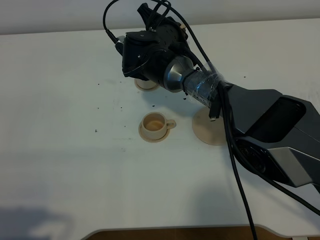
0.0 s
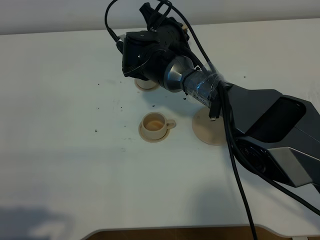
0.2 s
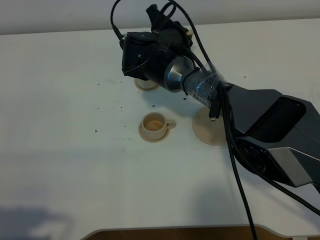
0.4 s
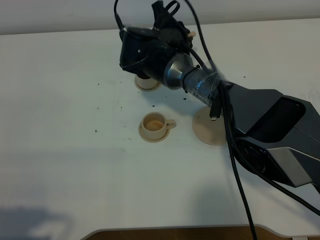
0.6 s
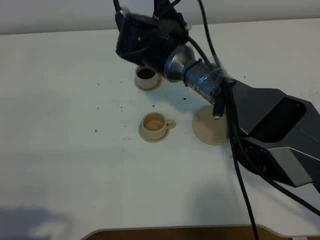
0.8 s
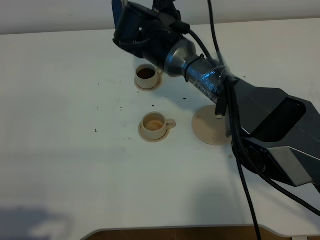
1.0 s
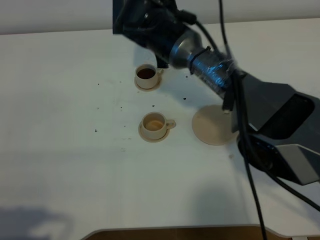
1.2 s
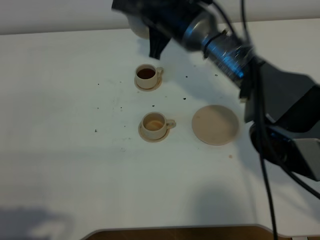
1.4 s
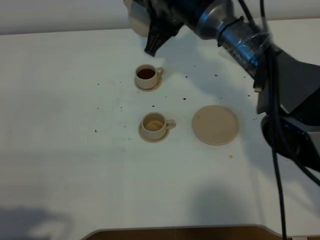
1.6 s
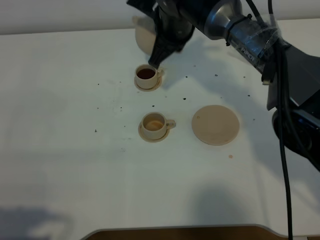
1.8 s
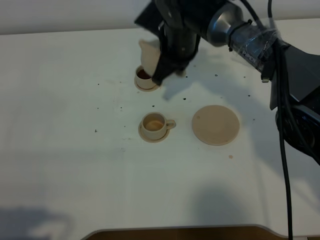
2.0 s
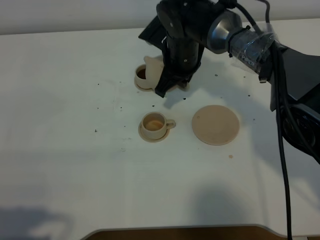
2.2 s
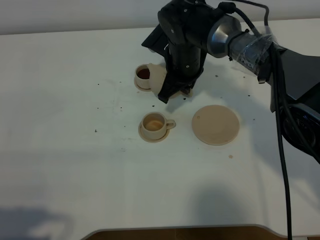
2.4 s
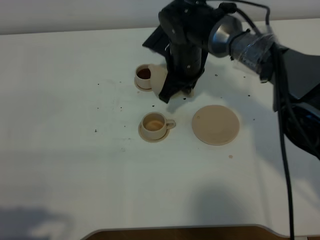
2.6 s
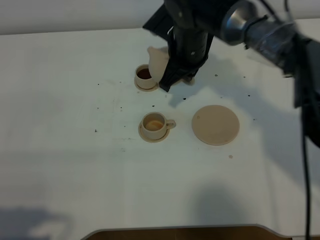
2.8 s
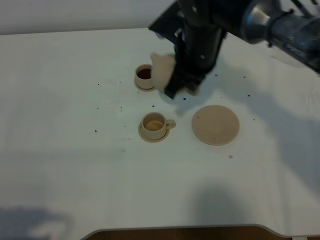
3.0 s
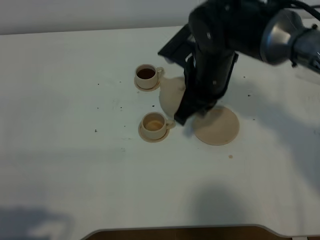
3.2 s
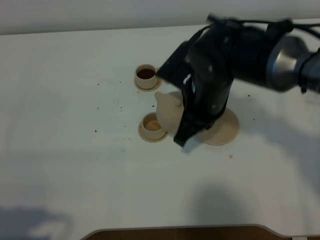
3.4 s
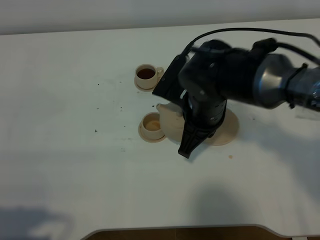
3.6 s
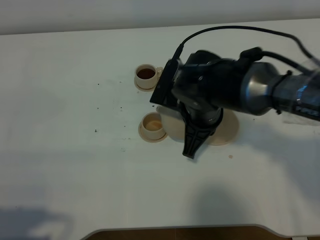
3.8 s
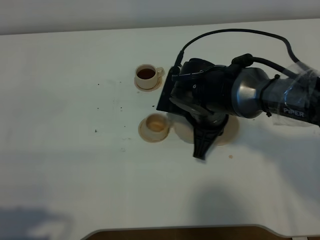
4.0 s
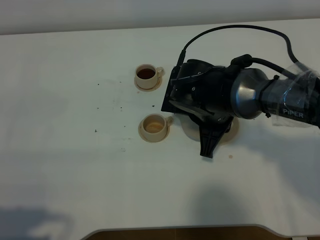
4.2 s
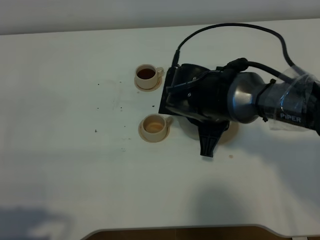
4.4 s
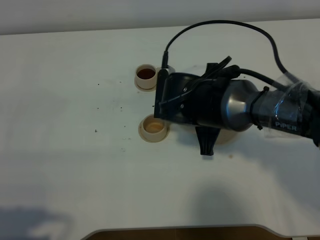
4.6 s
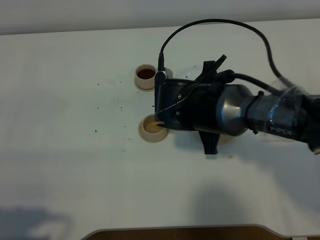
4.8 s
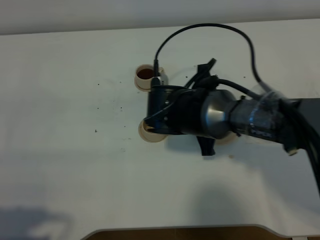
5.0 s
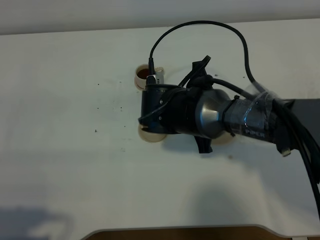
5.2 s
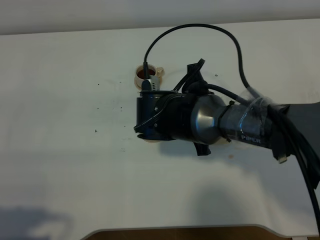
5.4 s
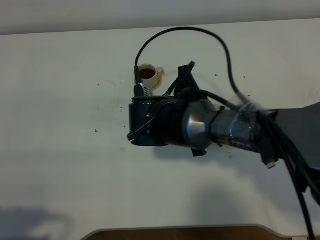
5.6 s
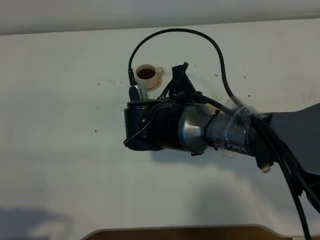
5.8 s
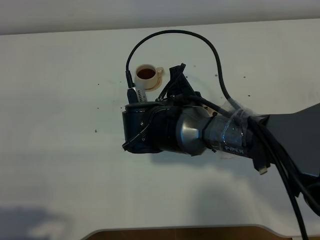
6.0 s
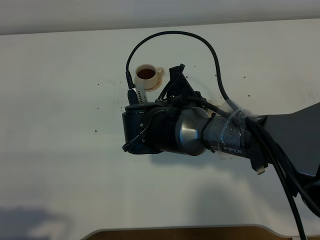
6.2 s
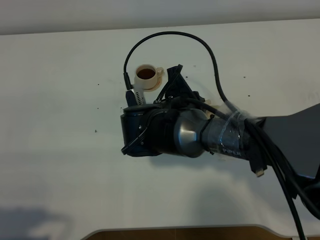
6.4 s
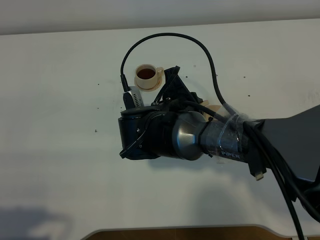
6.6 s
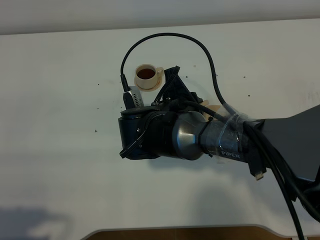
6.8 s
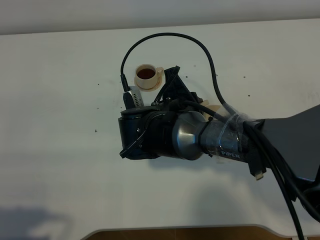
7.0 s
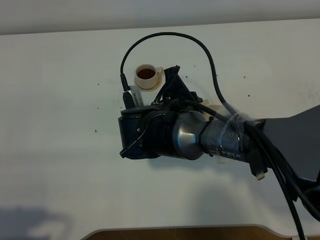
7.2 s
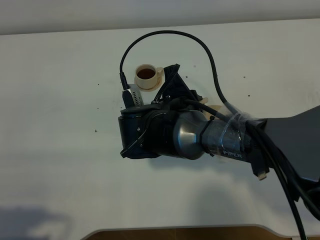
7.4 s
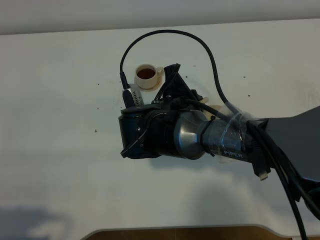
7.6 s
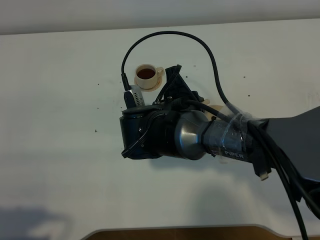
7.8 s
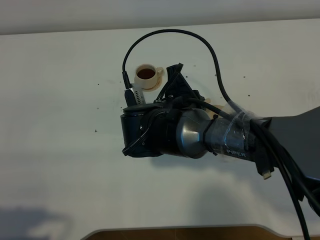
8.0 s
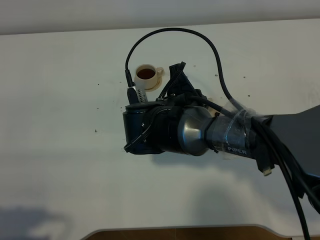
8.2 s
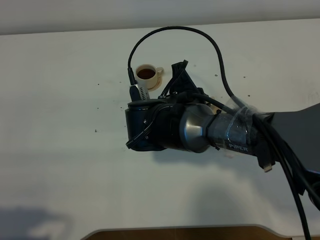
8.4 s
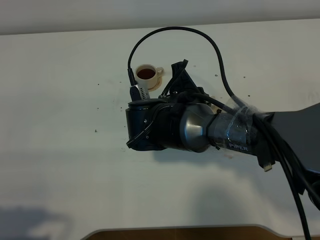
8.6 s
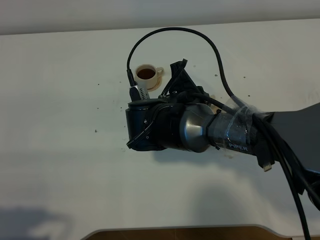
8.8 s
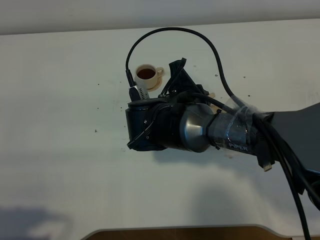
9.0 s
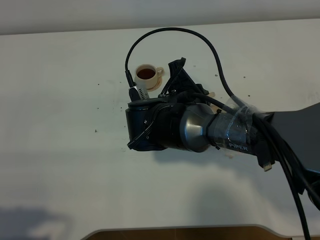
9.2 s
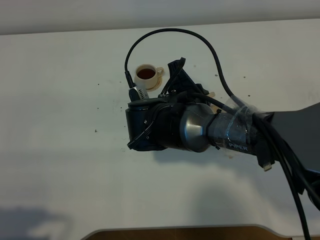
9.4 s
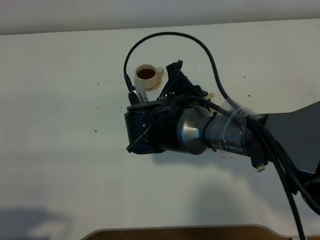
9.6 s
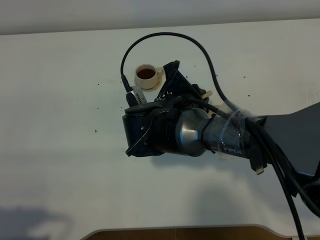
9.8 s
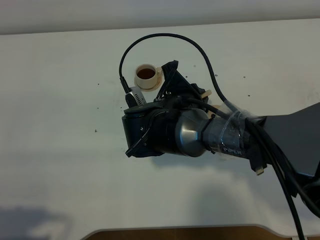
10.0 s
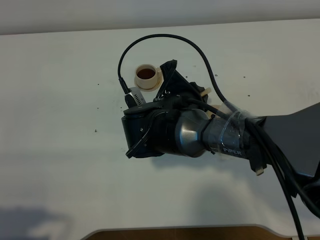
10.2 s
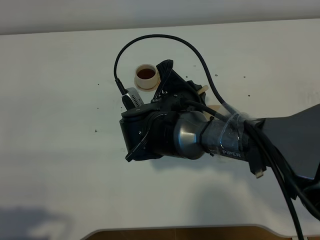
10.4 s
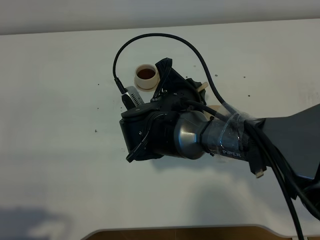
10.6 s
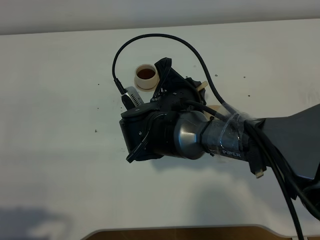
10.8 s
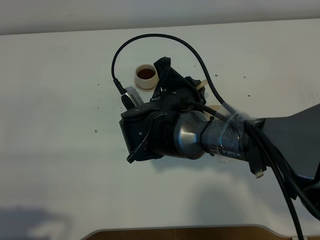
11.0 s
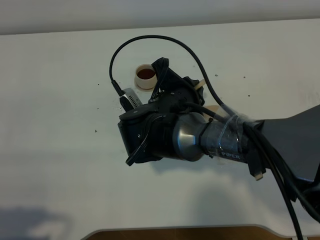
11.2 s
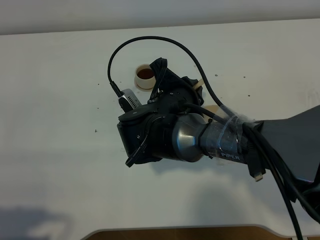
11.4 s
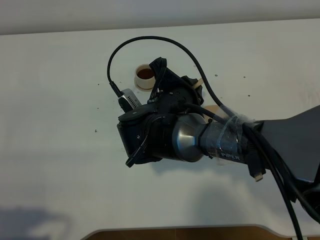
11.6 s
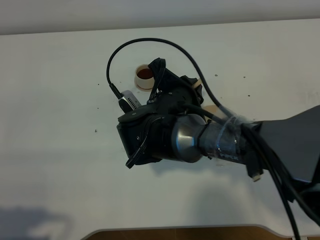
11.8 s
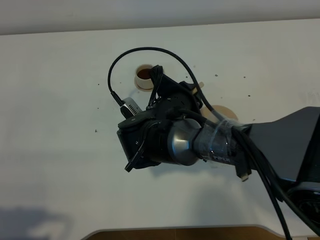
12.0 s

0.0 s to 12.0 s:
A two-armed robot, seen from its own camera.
Task of the whole recording: grasp the brown teapot and pour the tea into the two brown teacups one by one, put the brown teapot back in its original place.
0.0 to 1.6 s: The right gripper goes roughly 10 cm upward.
1.6 to 3.0 s: The right gripper heads backward, covering some 5 cm, and moves some 10 cm downward and comes back.
3.0 to 4.4 s: The right gripper moves backward and downward, about 10 cm.
4.4 to 6.0 s: The right gripper moves to the left, roughly 5 cm.
6.0 to 7.6 s: Both grippers stay put.
7.6 to 9.0 s: Neither gripper changes place.
9.0 to 10.4 s: The grippers stay close to where they were, moving slightly.
10.4 to 12.0 s: The grippers stay close to where they were, moving slightly.

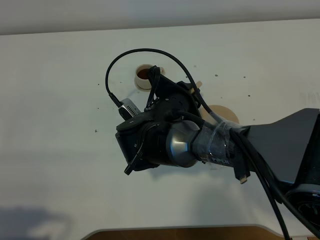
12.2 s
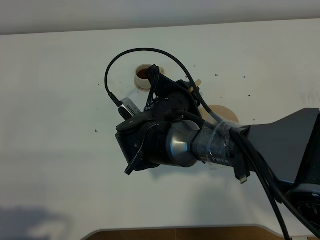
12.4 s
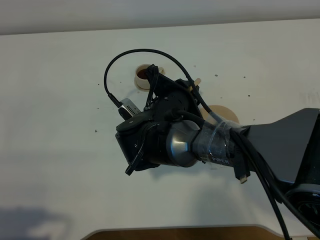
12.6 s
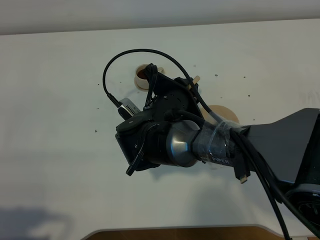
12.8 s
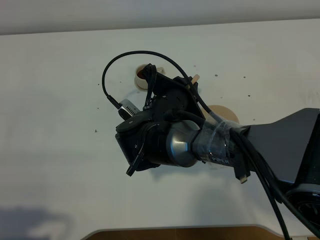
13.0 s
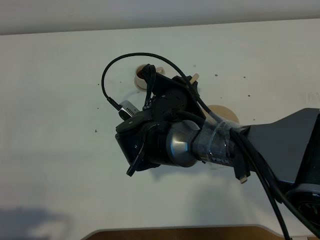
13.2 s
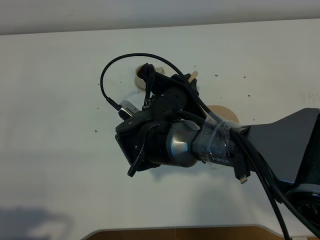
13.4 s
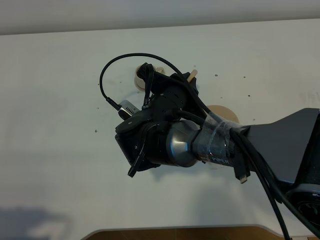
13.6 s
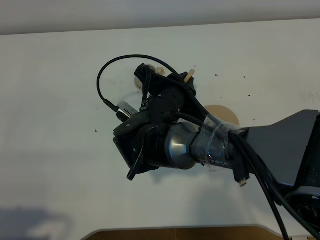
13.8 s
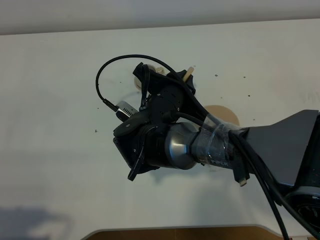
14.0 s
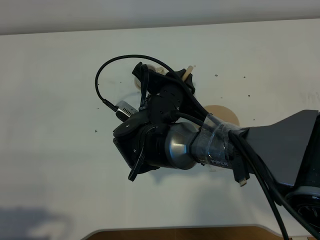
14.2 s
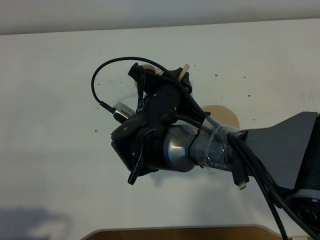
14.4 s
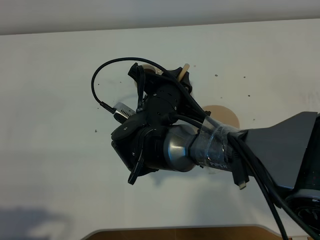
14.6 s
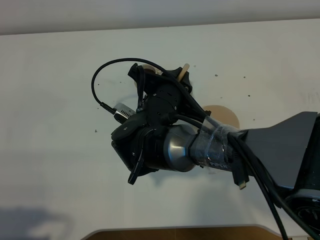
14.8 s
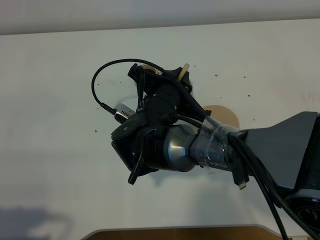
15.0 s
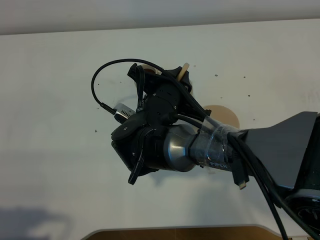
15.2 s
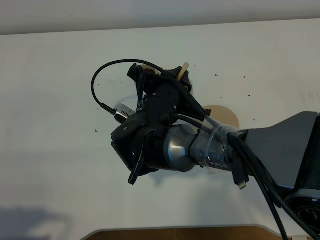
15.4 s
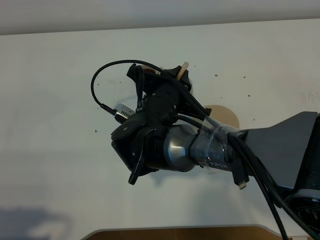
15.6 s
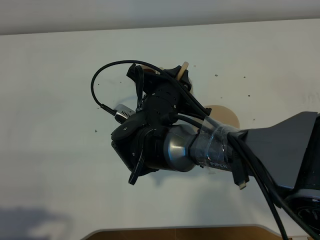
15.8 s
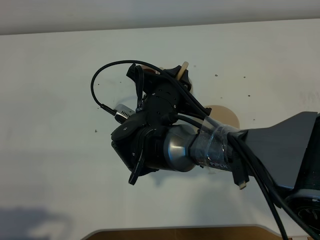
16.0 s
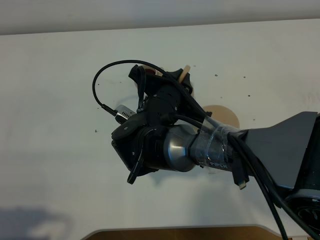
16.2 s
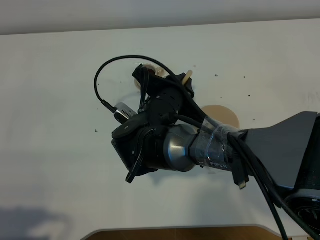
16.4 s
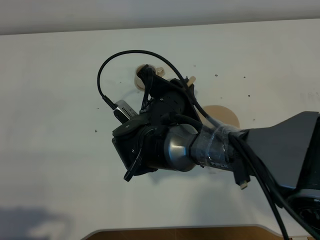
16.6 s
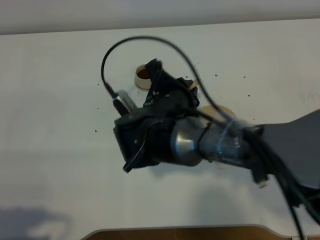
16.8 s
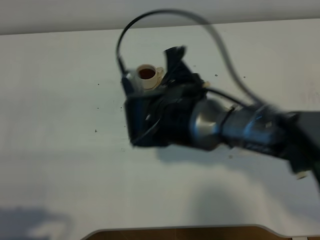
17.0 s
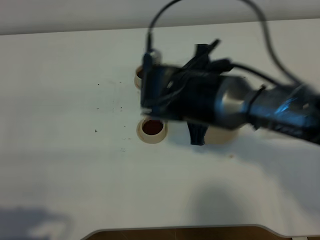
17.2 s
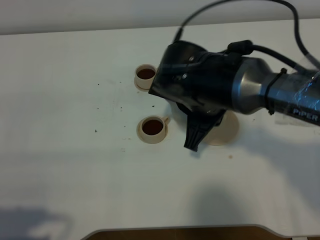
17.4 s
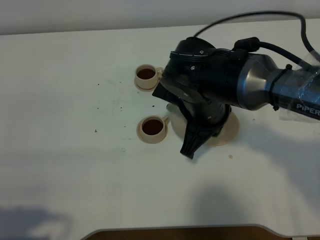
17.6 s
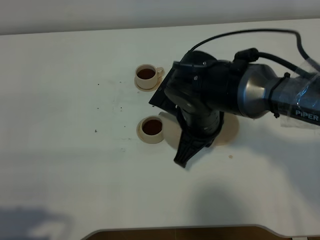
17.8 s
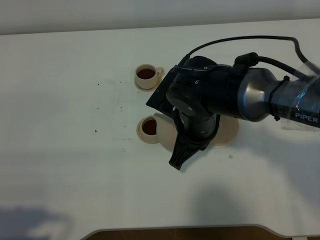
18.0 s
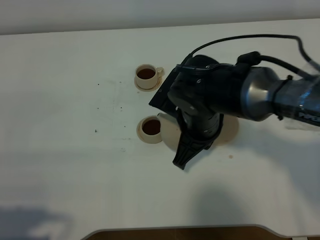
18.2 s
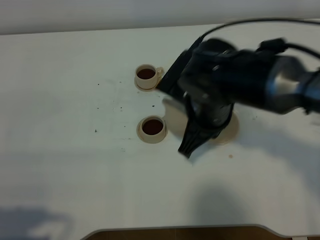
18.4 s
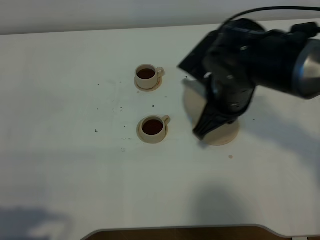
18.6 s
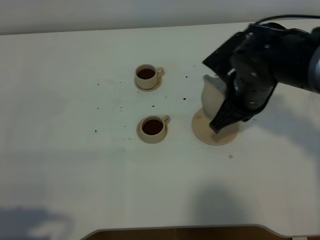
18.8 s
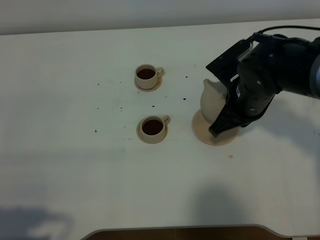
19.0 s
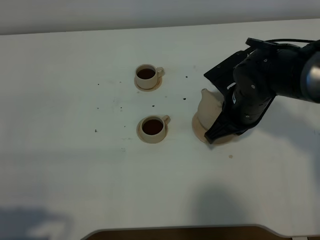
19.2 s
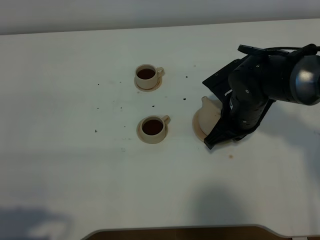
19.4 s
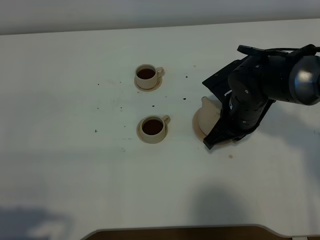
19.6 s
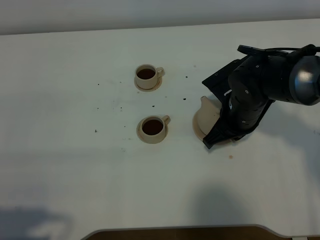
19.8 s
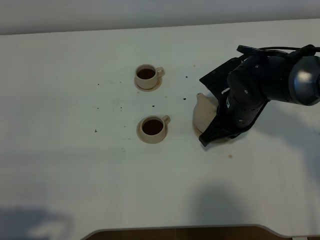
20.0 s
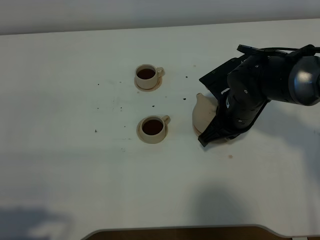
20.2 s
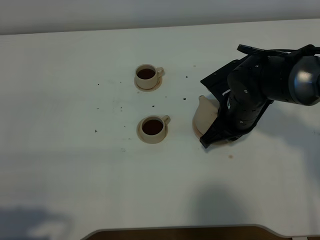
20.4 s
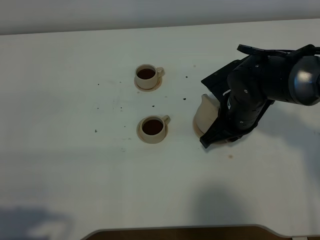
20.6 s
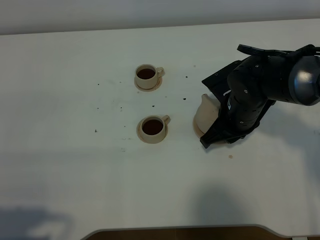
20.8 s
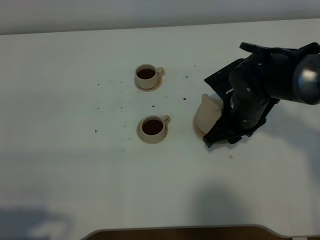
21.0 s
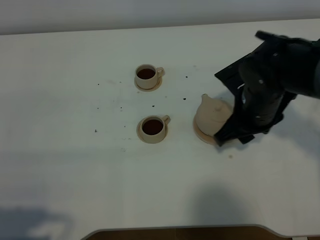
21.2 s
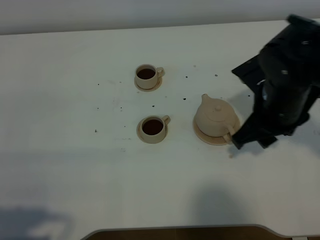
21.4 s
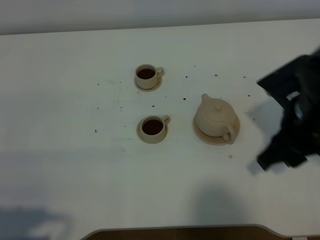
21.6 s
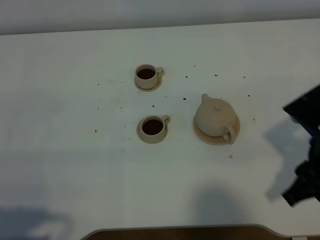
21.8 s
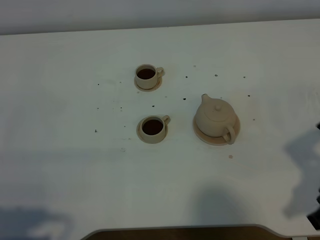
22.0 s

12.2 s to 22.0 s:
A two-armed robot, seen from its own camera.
Task of the whole recording: grasp the brown teapot and pour the tea into the two brown teacups one by one, put the brown teapot back in its original place.
Step, 12.2 to 17.2 s: Pour tea into the teacup with the right gripper.
12.2 to 16.4 s: The grippers move only a little.
16.4 to 17.8 s: The right gripper goes roughly 5 cm to the right.
17.8 to 19.2 s: The right gripper is displaced to the right by some 10 cm.
19.2 to 20.6 s: The grippers move only a little.
20.6 to 22.0 s: The right gripper moves backward, upward and to the right, roughly 25 cm, and opens up.
